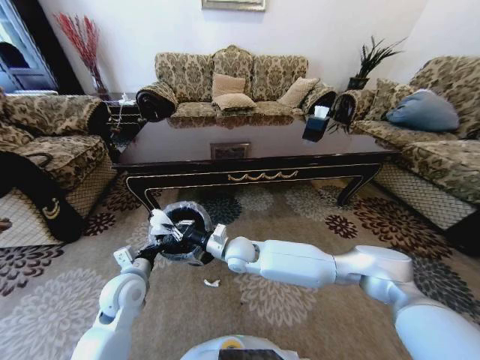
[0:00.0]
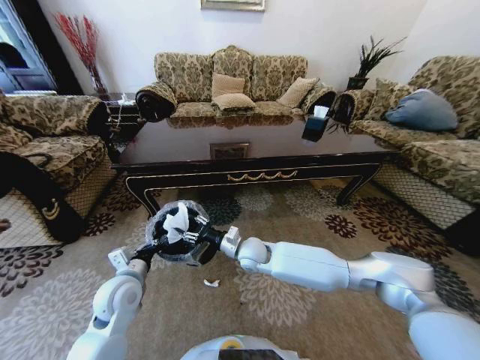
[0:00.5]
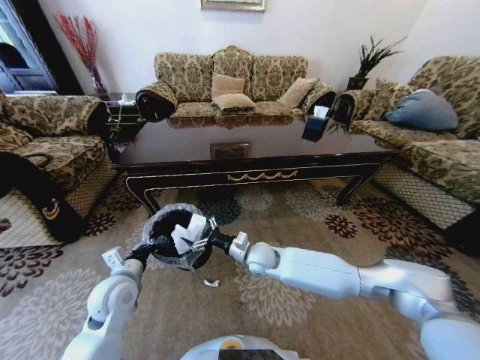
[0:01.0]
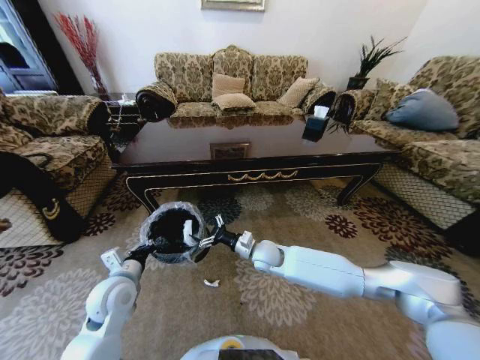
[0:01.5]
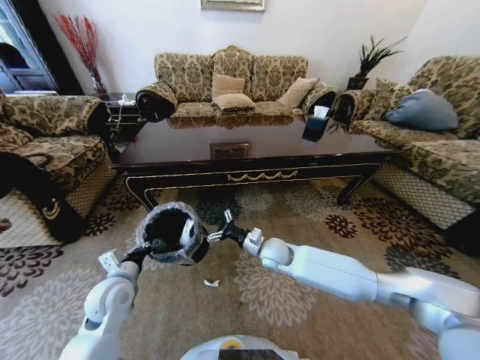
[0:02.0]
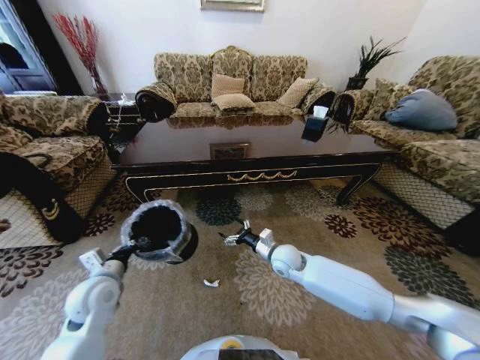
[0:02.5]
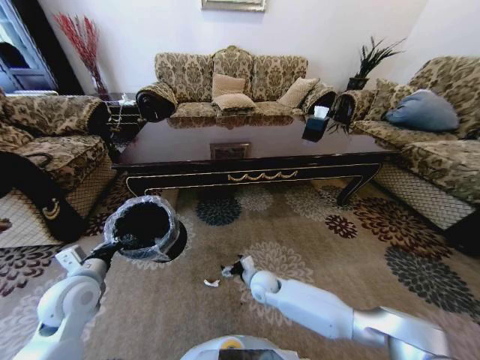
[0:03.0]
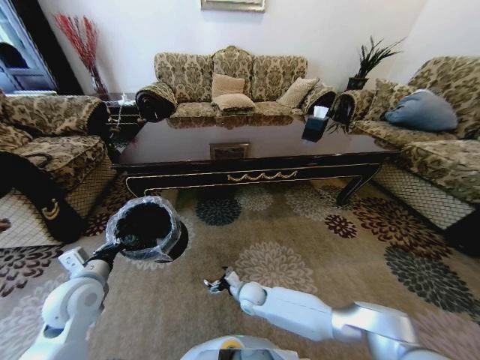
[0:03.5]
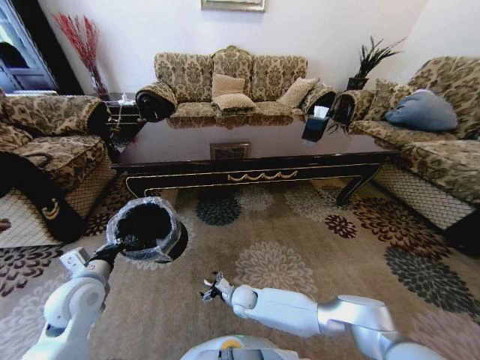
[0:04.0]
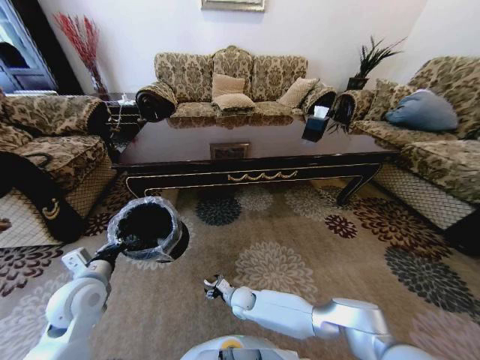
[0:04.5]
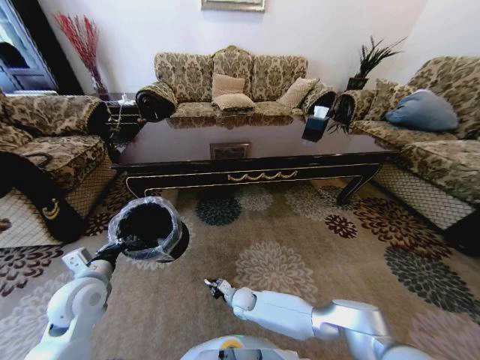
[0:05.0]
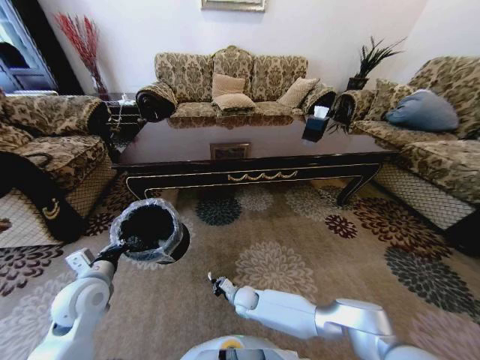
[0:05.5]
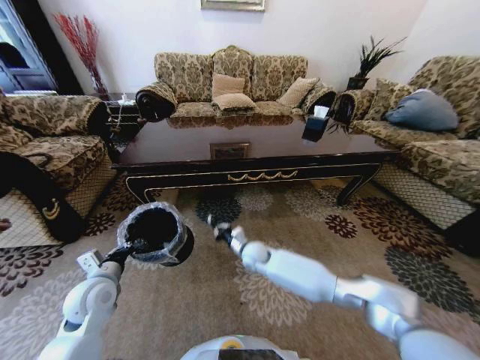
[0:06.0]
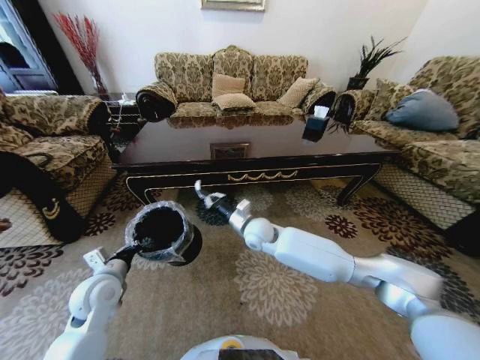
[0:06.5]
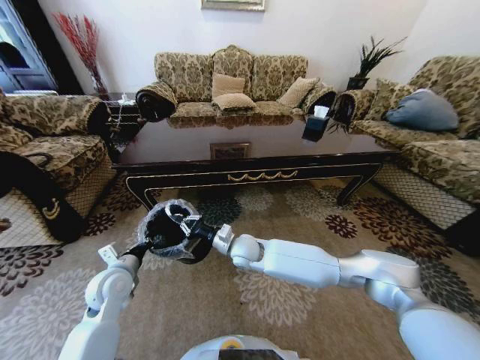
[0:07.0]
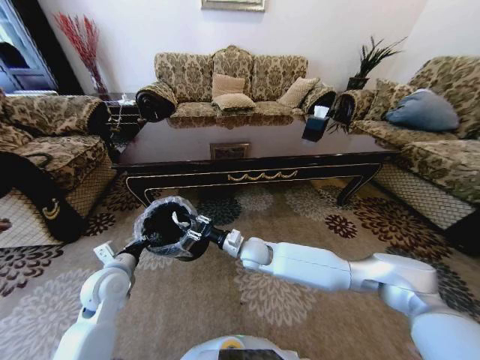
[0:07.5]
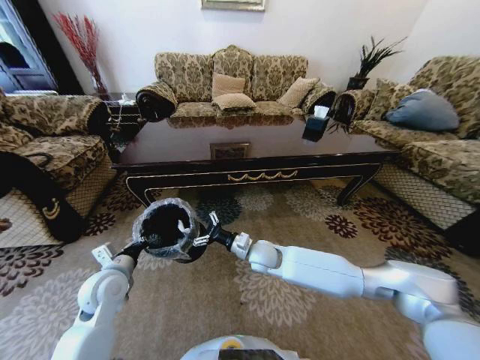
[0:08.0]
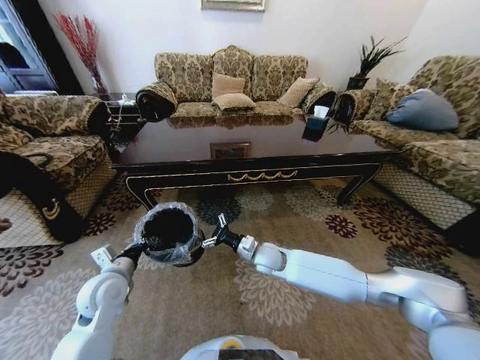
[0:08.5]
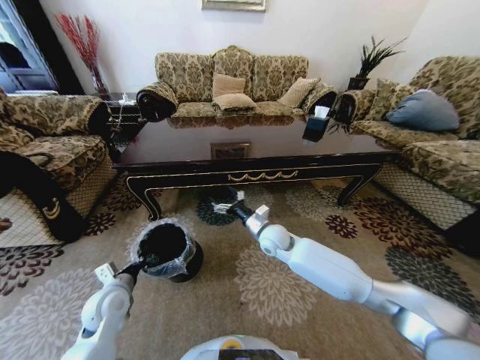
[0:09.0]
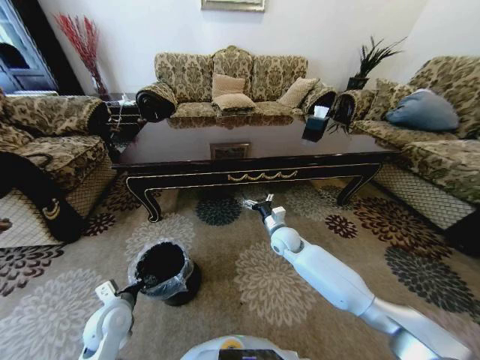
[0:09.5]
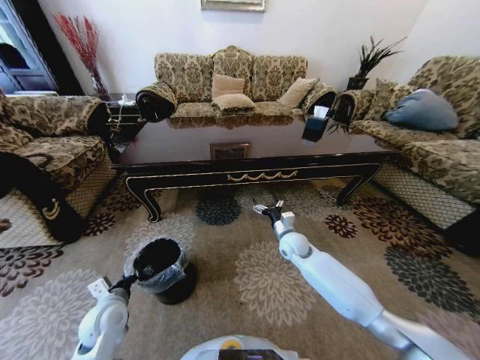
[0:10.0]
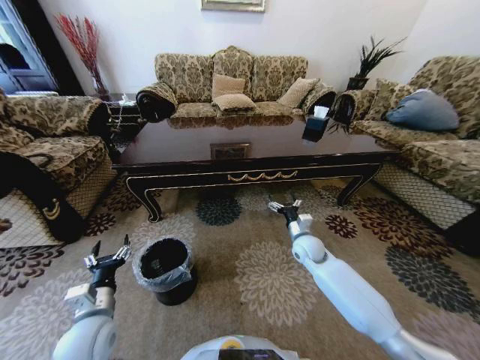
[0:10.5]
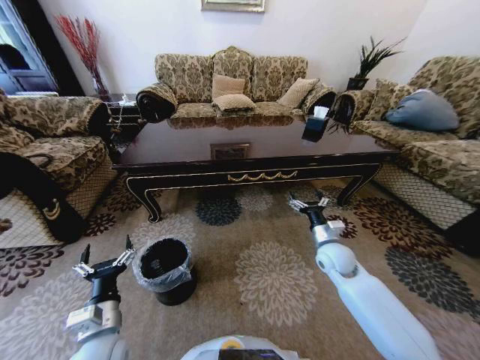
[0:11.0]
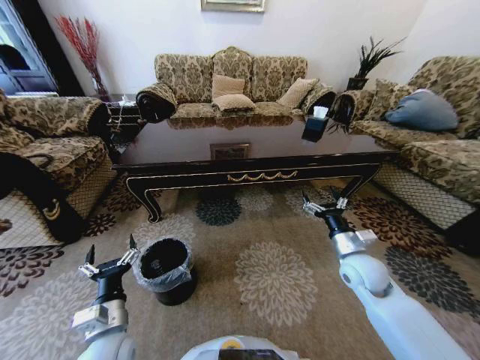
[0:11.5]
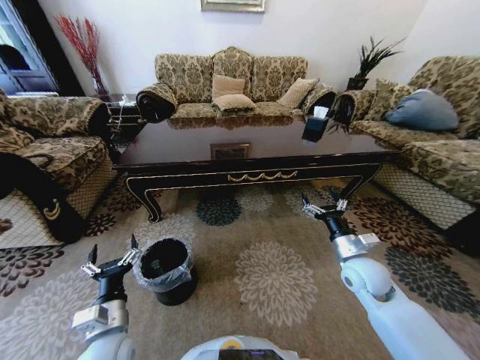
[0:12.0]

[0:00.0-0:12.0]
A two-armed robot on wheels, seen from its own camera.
Task of the whole recording: Move to the front of the table and pick up the trash from the floor, then place it into the trash bin.
0:00.0 to 0:02.0: The right gripper travels to the right by about 10 cm, and opens its fingers.
0:02.0 to 0:04.0: The left gripper is displaced to the left by approximately 5 cm, while the right gripper shifts approximately 20 cm downward, to the left and backward.
0:04.0 to 0:06.0: The right gripper goes about 15 cm upward and forward, and closes up.
0:06.0 to 0:08.0: The right gripper goes some 5 cm upward, and opens up.
0:08.0 to 0:10.0: The right gripper moves to the right and forward, approximately 15 cm. Meanwhile the left gripper shifts roughly 10 cm downward and backward.
0:10.0 to 0:12.0: The right gripper goes some 20 cm backward, to the right and upward; the left gripper is displaced backward, to the right and upward by approximately 10 cm, and opens.

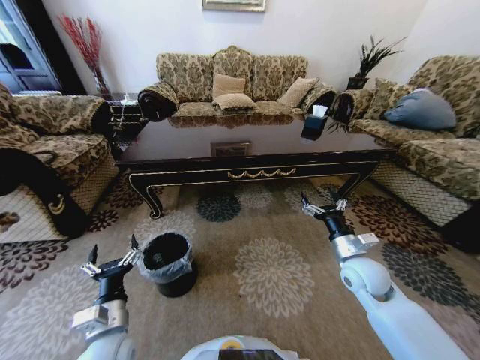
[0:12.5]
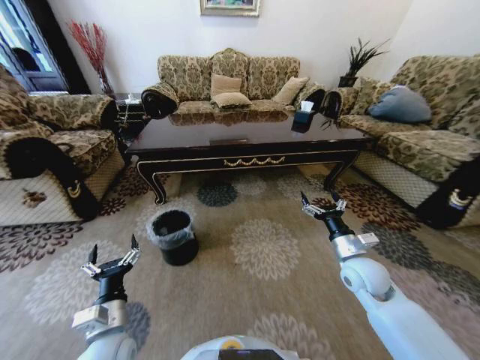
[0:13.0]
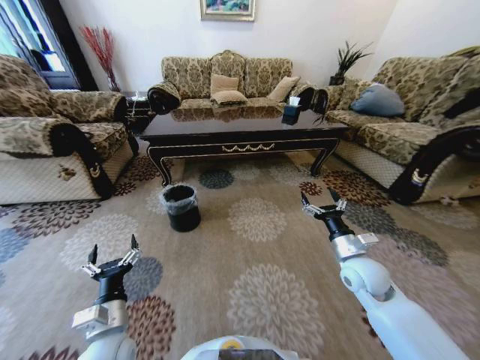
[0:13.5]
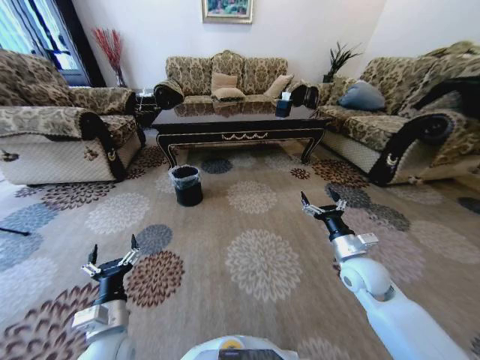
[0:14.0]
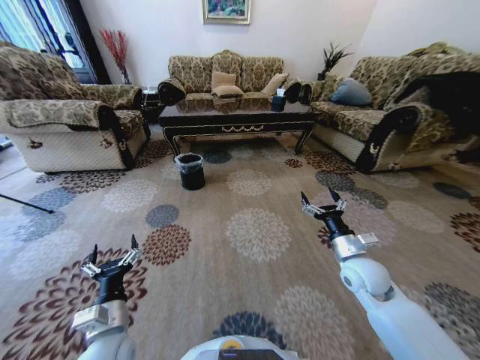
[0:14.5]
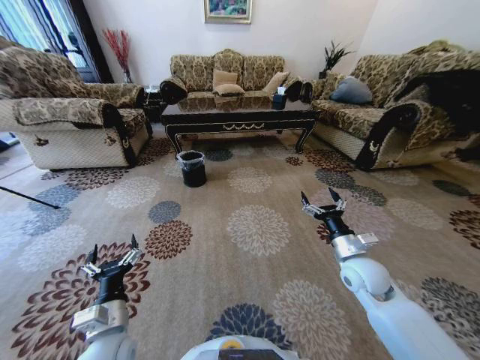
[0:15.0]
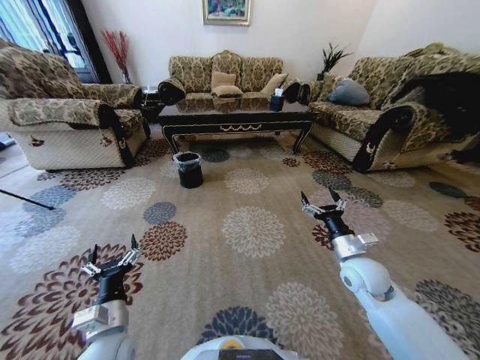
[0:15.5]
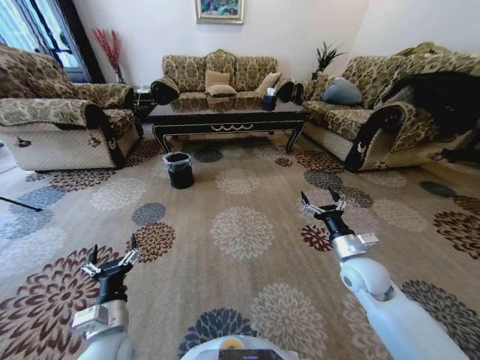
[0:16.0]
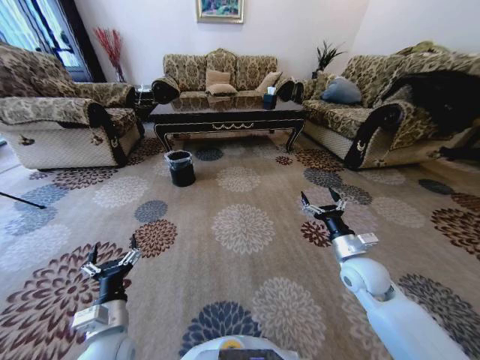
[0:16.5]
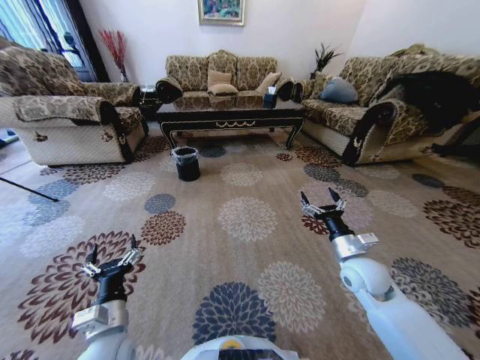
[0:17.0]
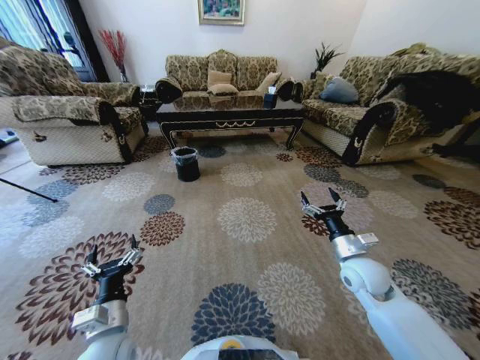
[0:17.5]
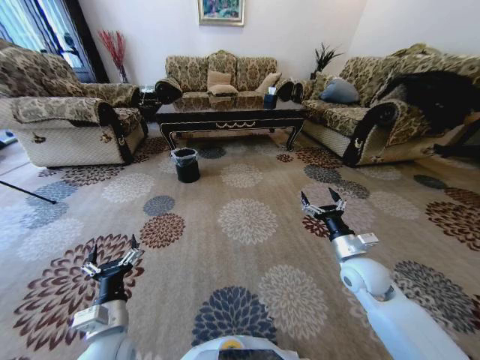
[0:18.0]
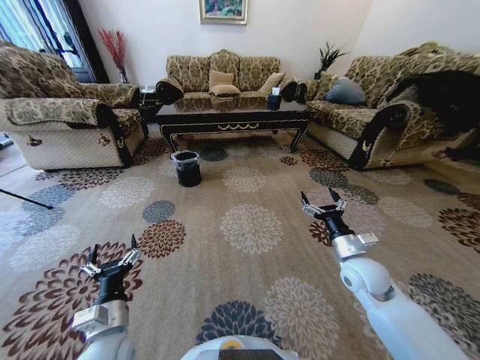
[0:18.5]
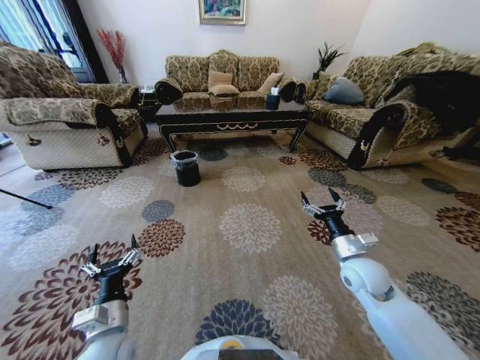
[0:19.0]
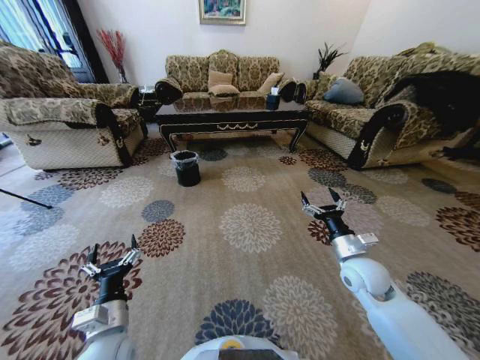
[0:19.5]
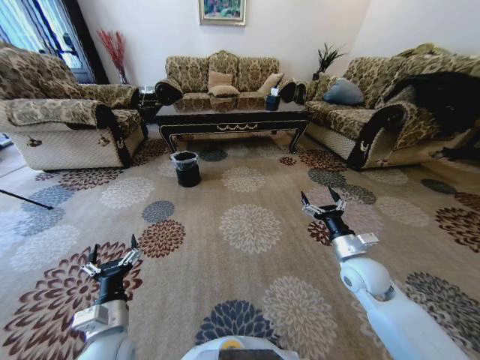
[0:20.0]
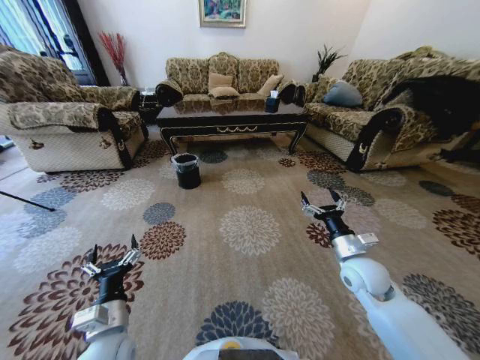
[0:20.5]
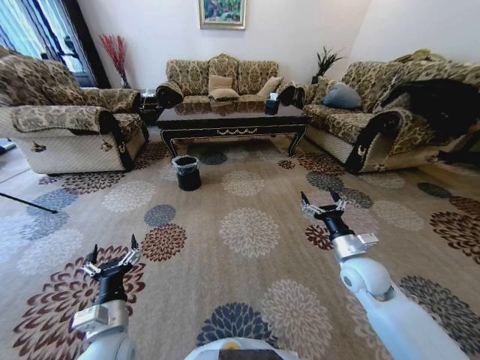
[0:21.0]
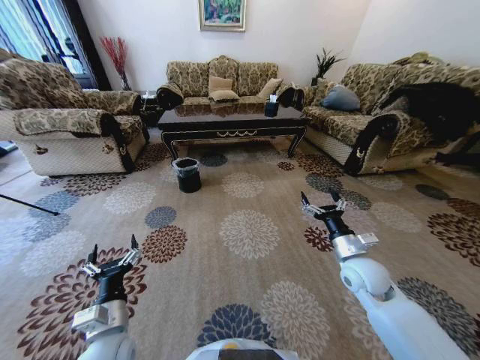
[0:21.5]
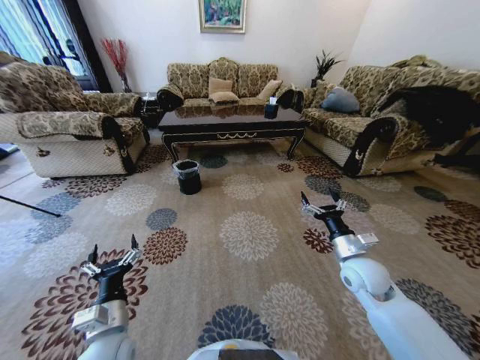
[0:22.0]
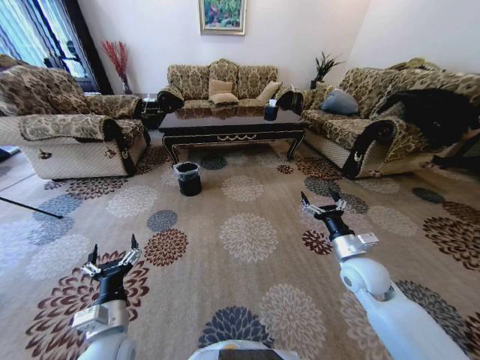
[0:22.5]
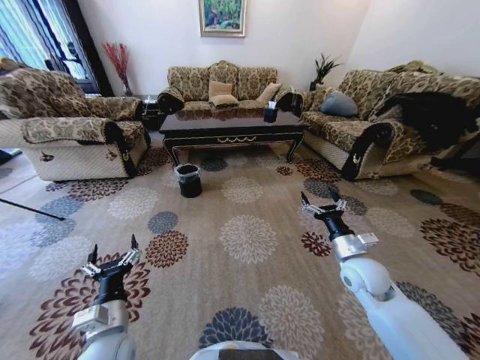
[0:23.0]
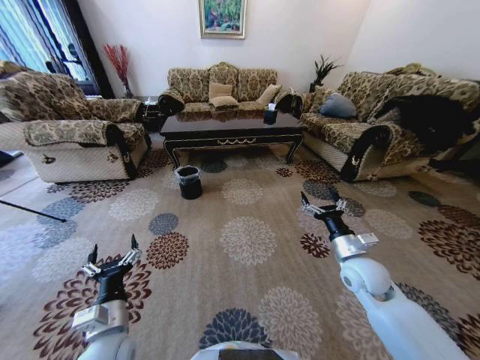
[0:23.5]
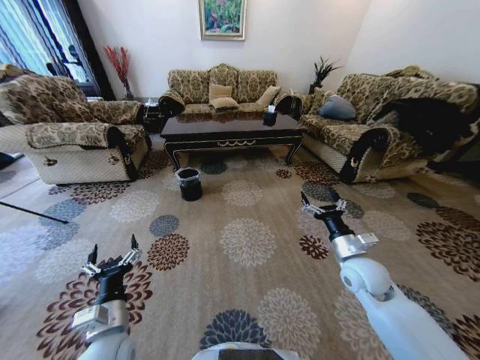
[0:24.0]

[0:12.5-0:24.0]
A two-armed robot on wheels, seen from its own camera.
Task of the whole recording: Move to the front of the table and pick up the trash from the floor, then place it into the trash bin.
0:16.5 to 0:20.0: The two grippers keep their place.
